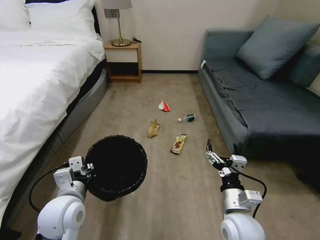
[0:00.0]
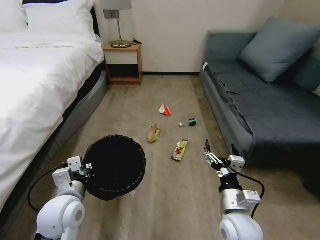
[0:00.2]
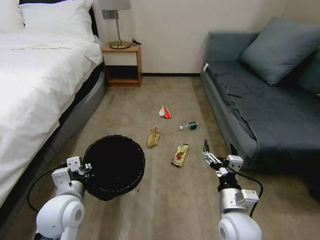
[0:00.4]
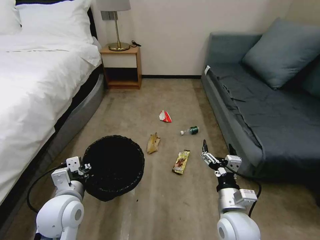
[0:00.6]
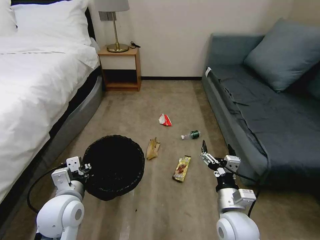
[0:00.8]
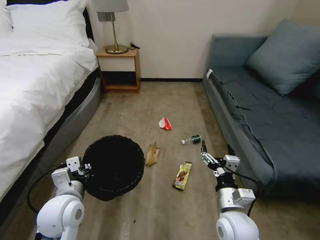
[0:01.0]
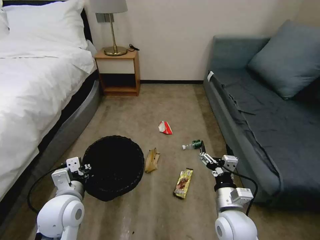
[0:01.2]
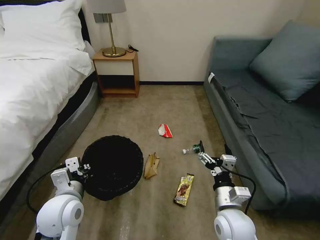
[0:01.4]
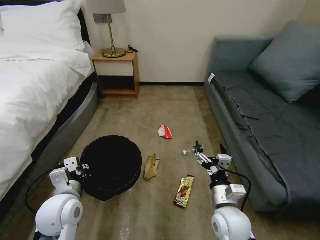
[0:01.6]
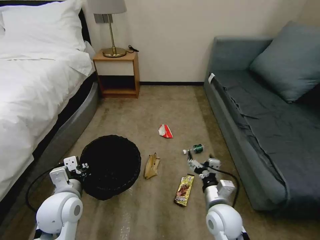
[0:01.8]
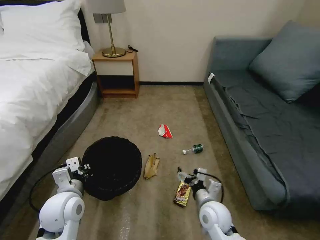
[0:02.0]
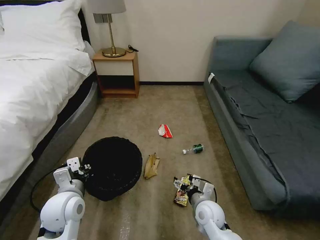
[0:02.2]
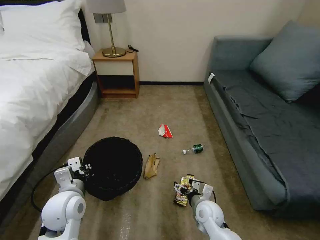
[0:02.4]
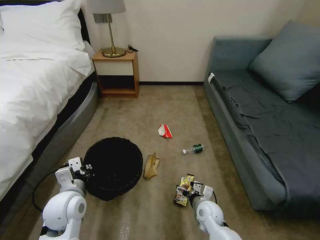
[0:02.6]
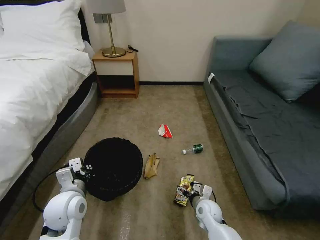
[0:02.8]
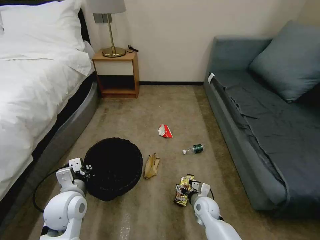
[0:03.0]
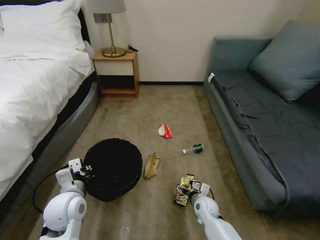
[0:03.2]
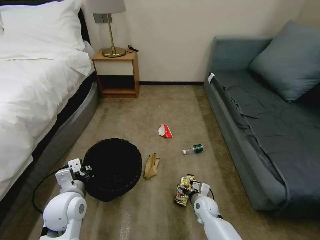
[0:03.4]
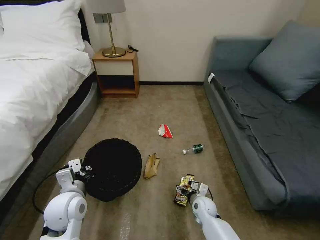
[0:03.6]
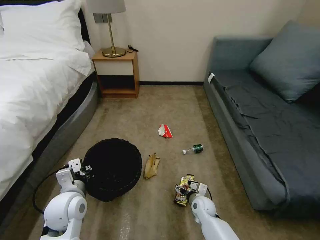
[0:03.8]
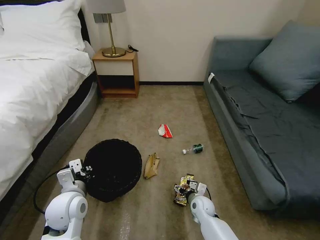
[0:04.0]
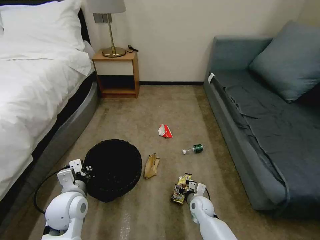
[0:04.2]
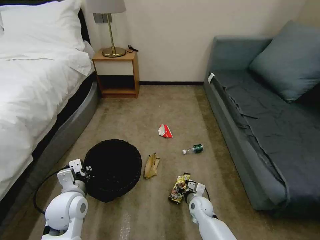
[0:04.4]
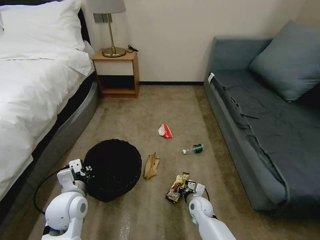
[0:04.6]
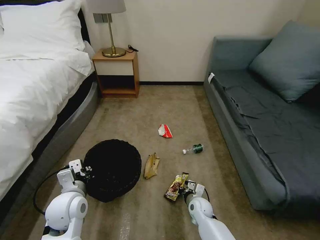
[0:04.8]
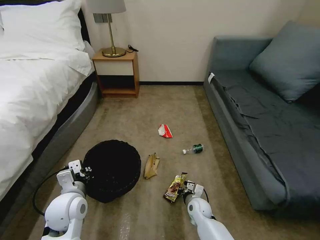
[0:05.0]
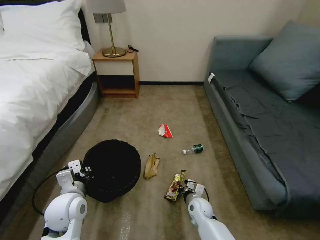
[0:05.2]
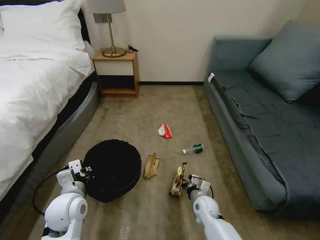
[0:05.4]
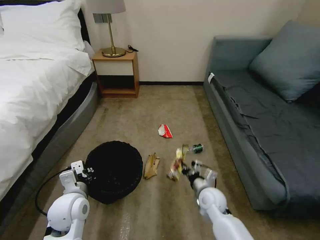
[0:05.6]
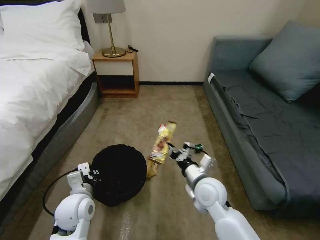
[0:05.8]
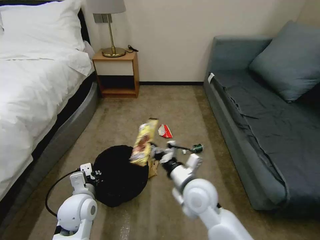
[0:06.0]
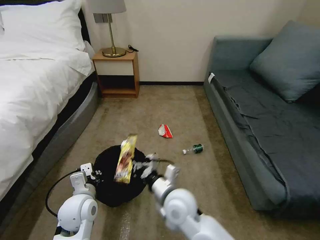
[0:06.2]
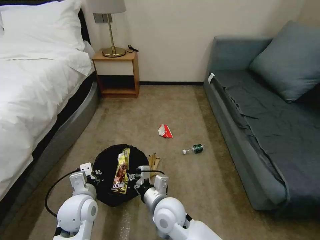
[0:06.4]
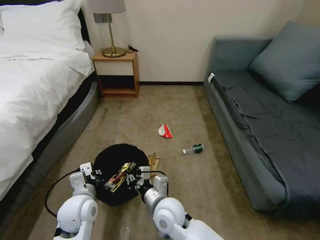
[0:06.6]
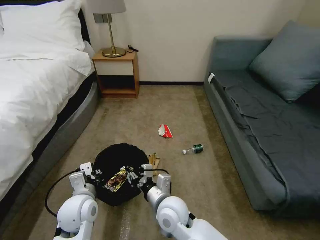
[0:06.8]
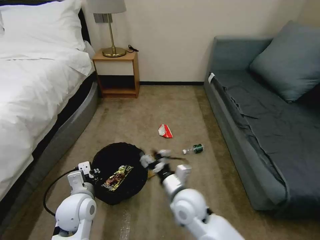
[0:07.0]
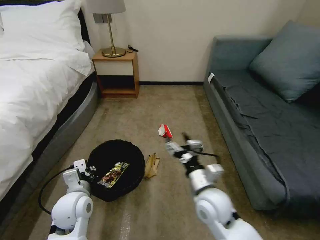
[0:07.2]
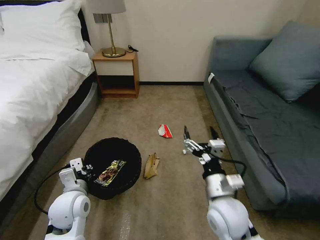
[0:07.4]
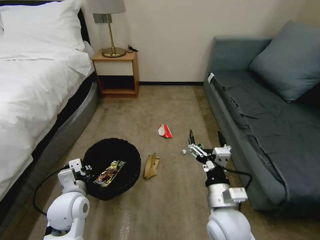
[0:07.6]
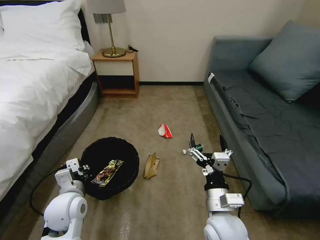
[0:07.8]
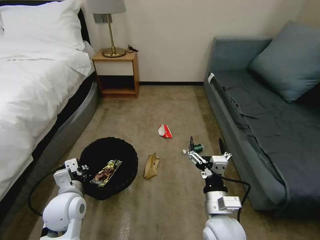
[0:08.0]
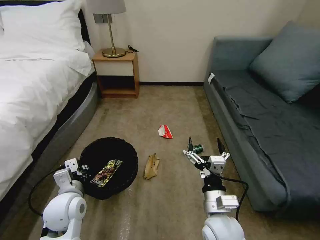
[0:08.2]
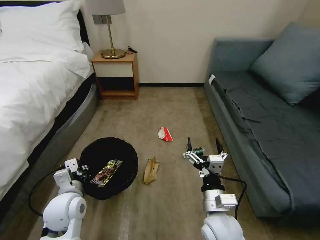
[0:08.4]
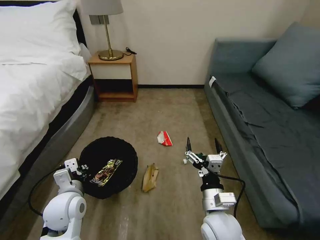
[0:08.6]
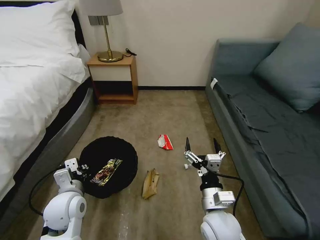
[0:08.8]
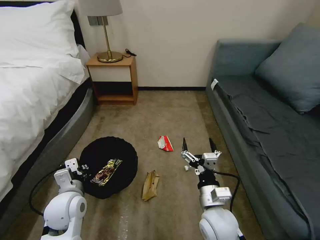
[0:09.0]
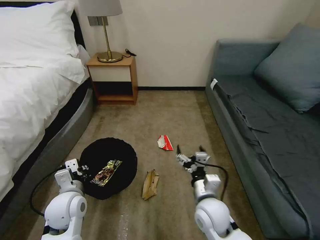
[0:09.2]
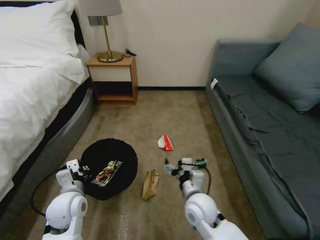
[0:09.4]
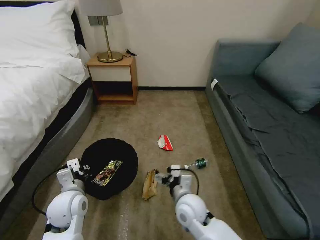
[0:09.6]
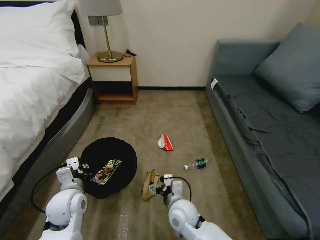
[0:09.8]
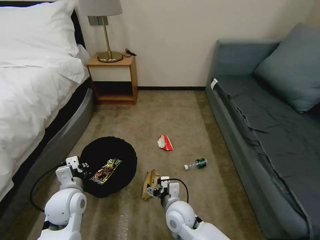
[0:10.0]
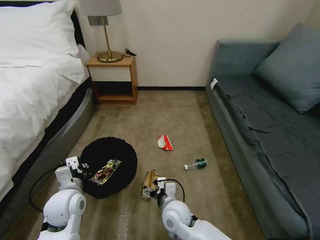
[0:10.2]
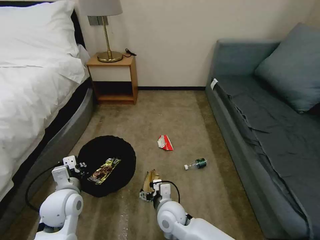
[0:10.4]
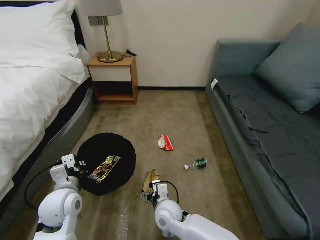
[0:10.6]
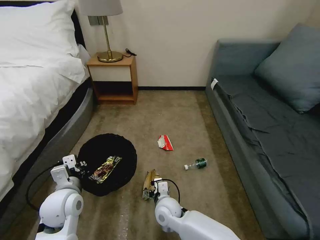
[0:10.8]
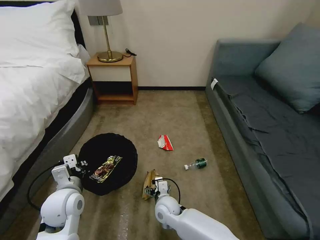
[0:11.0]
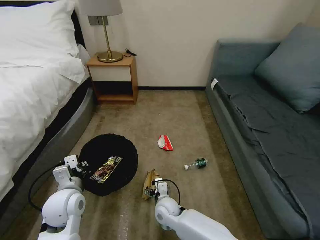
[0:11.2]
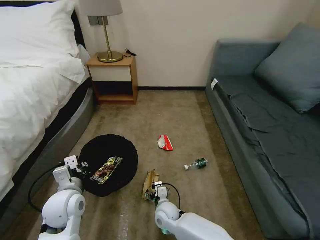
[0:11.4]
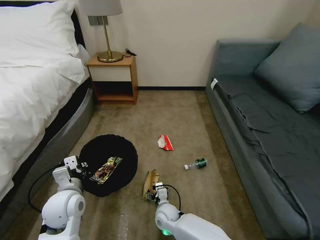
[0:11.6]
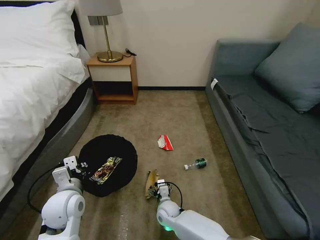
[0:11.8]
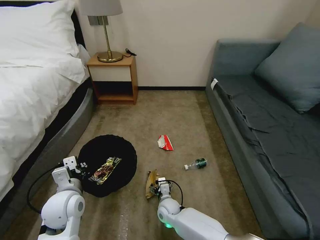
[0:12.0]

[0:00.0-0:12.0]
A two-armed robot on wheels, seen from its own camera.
Task of the whole recording: Pick up the trash bin, then pick up the garbage on the floor and place it into the trash bin.
0:01.6 to 0:03.0: The right gripper heads downward and forward, covering about 20 cm.
0:03.0 to 0:04.4: The right gripper closes up.
0:04.4 to 0:06.0: The right gripper heads upward, covering roughly 25 cm, and closes up.
0:06.0 to 0:07.6: The right gripper moves backward, some 10 cm, moves roughly 10 cm to the left and comes back, and opens its fingers.
0:09.0 to 0:10.4: The right gripper shifts approximately 15 cm to the left and downward.
0:10.4 to 0:12.0: The right gripper moves downward and forward, roughly 15 cm.

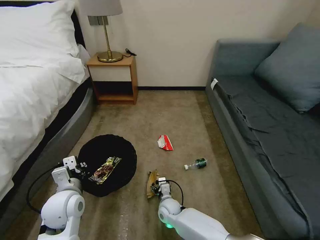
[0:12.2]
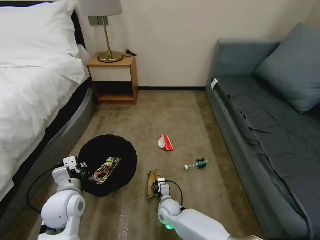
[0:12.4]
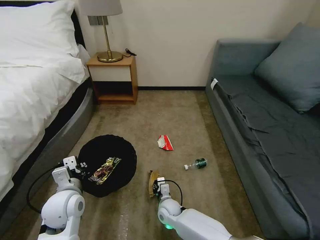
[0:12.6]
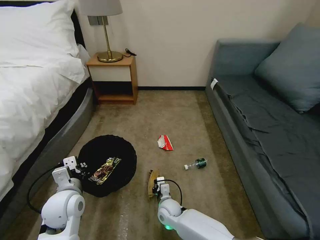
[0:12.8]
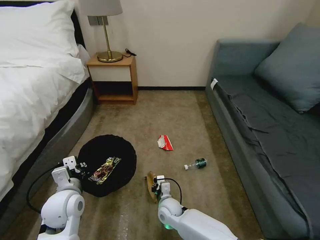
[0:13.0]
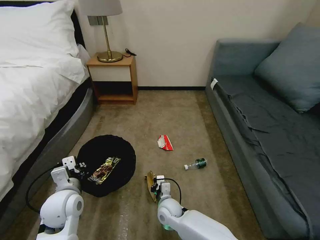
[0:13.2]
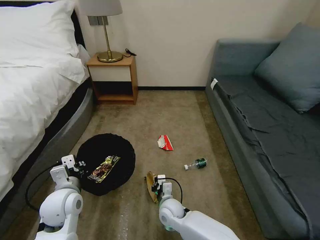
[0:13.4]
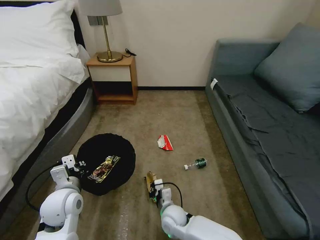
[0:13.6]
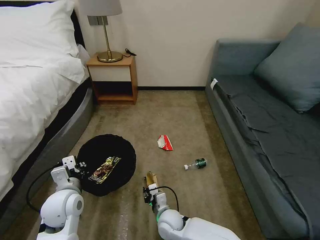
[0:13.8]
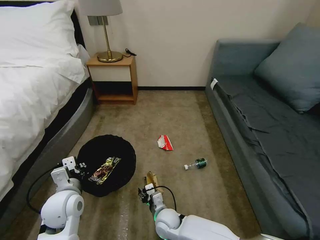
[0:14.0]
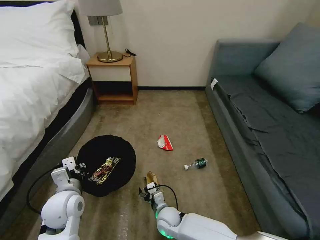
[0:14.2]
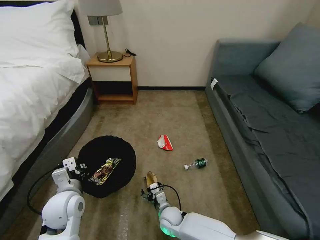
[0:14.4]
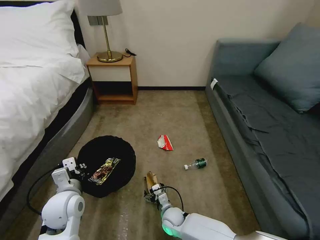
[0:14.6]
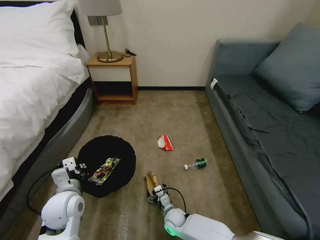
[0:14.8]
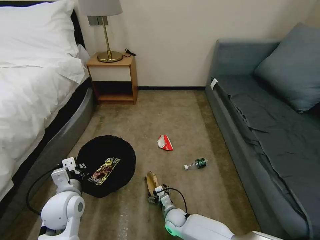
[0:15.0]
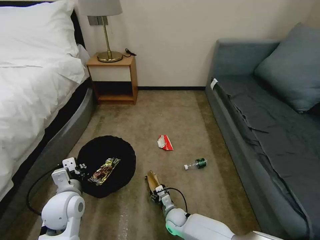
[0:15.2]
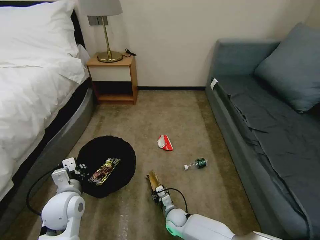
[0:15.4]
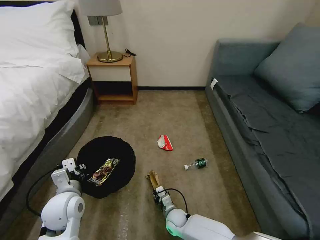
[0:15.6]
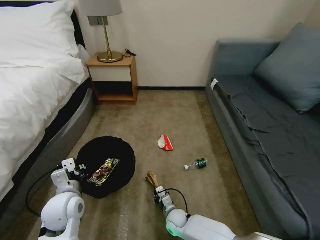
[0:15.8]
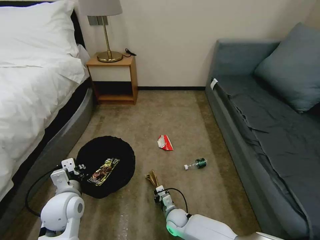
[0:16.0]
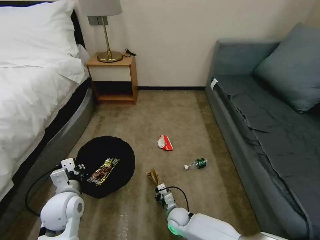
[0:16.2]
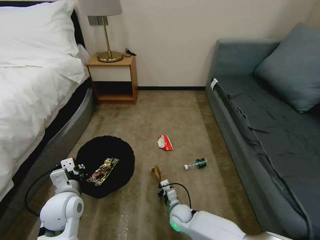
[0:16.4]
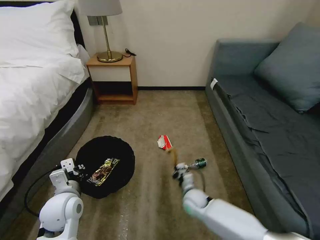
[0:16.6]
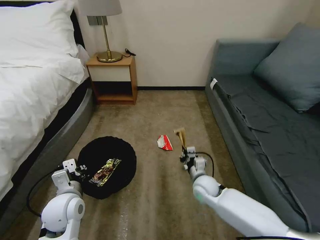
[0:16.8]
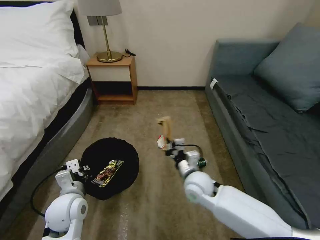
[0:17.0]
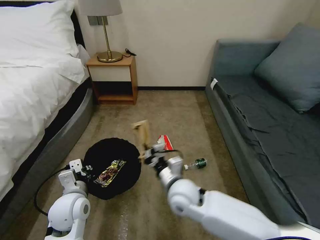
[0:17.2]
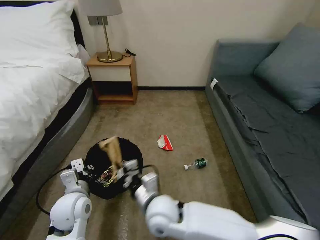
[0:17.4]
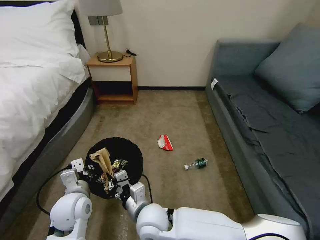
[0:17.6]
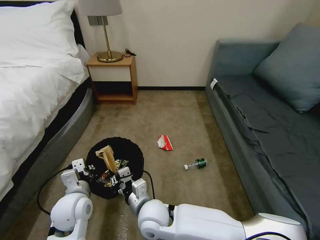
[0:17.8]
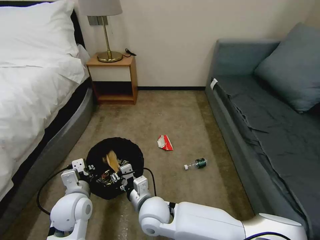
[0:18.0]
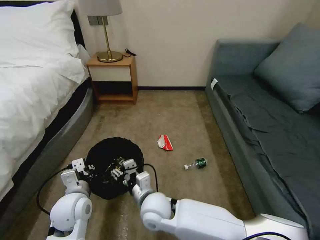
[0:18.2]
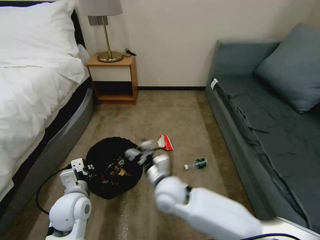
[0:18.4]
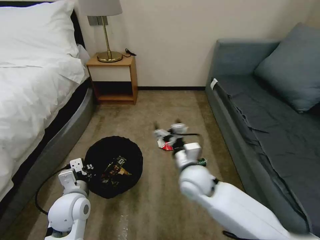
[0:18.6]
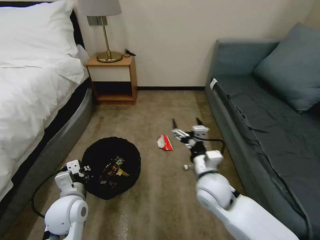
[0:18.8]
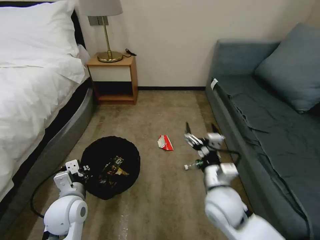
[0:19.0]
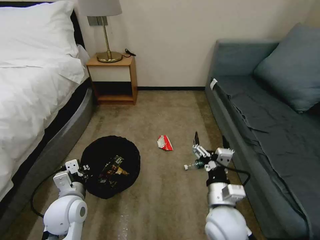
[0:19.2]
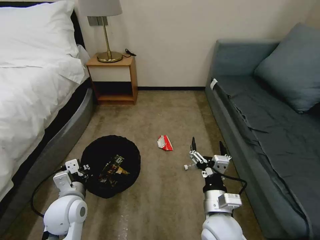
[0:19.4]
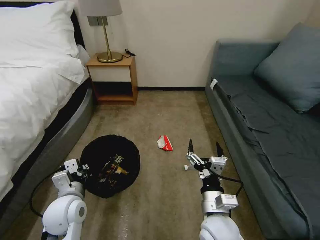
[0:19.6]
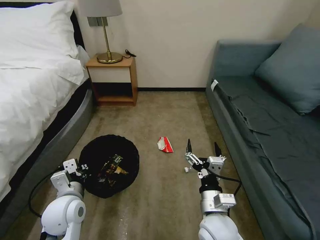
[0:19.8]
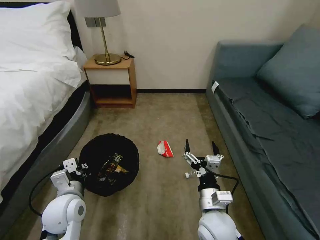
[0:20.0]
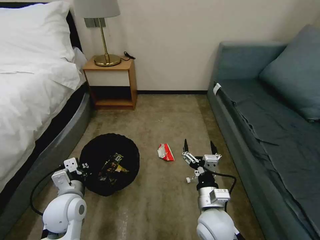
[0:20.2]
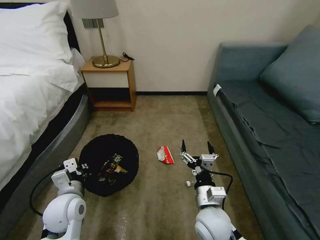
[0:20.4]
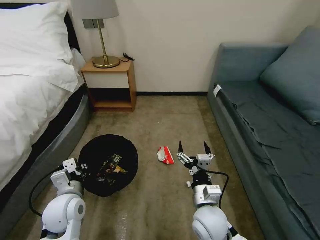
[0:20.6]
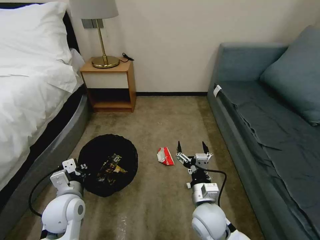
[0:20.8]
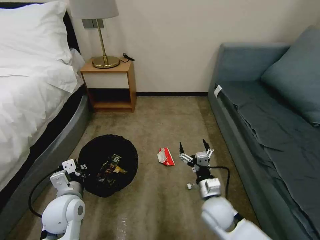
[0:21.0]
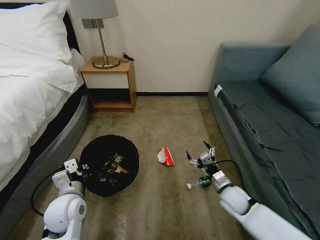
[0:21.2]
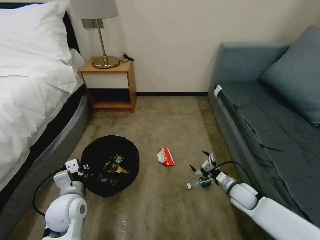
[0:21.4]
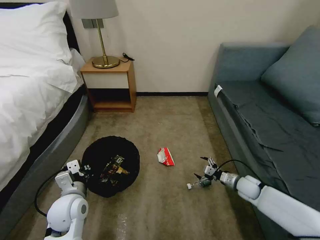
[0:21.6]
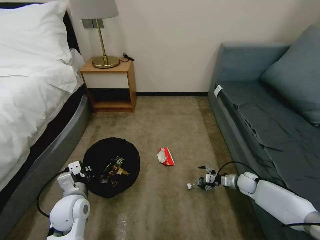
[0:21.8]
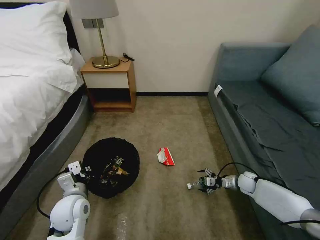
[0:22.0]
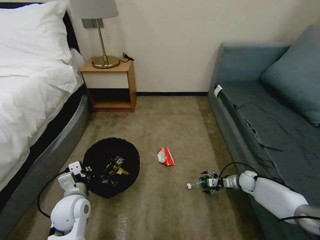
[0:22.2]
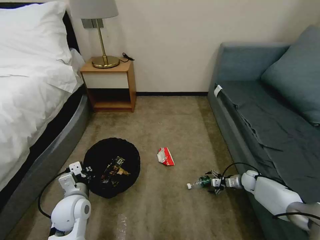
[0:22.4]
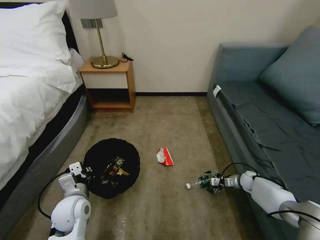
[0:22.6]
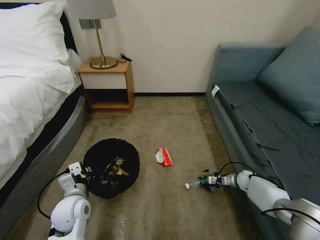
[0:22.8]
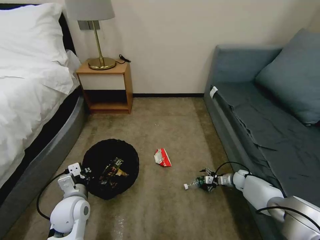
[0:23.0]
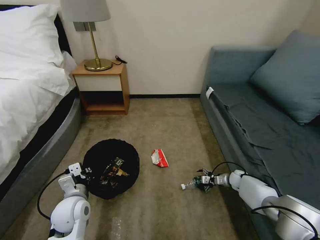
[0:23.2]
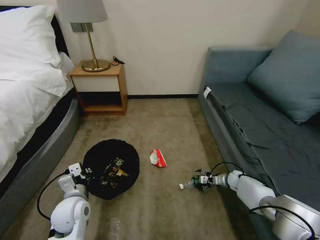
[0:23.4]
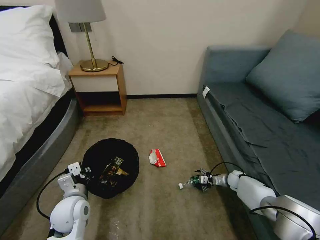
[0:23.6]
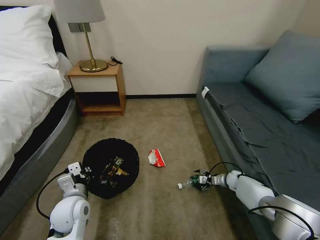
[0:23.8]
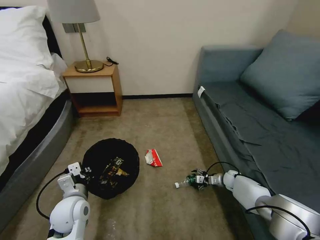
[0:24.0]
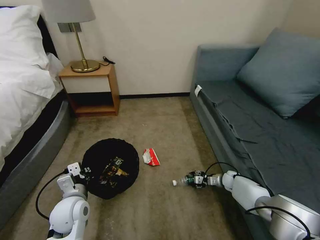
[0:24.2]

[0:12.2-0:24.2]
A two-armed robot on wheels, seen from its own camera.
Task of the whole recording: Pick up the trash bin, then pick up the garbage on the floor and place it into the trash bin.
0:12.2 to 0:13.8: The right gripper is displaced backward and upward by some 10 cm, and closes its fingers.
0:13.8 to 0:15.2: The right gripper moves downward, some 10 cm, and opens up.
0:15.2 to 0:16.6: The right gripper moves upward and to the right, about 10 cm, and closes its fingers.
0:16.6 to 0:18.2: The right gripper shifts roughly 25 cm upward, to the left and backward, and opens up.
0:18.2 to 0:19.8: The right gripper heads to the right, covering roughly 15 cm, and opens up.
0:19.8 to 0:21.2: The right gripper is displaced to the right, forward and downward by some 20 cm.
0:21.2 to 0:22.6: The right gripper moves to the right, forward and downward, about 25 cm.
0:22.6 to 0:24.2: The right gripper shifts about 10 cm to the left.
